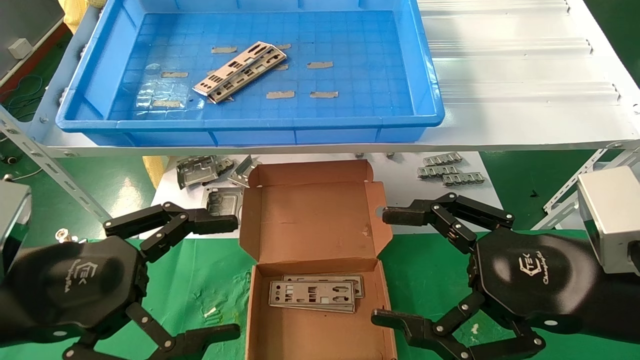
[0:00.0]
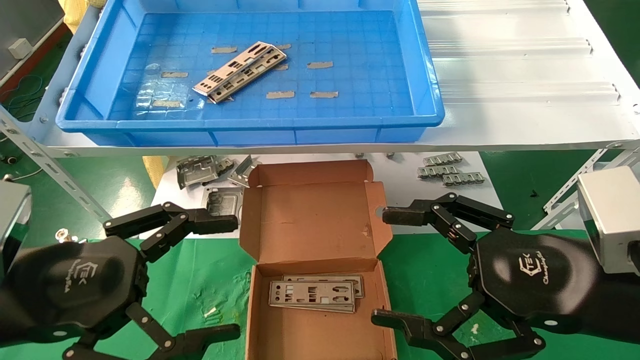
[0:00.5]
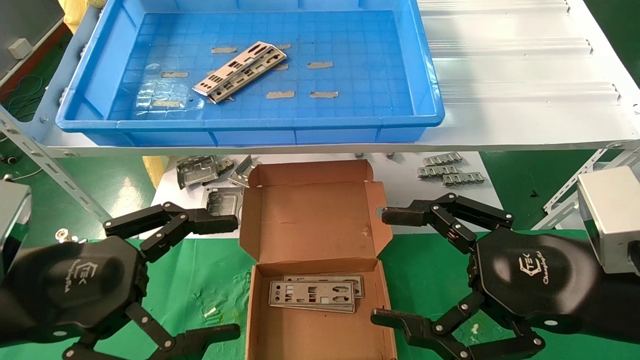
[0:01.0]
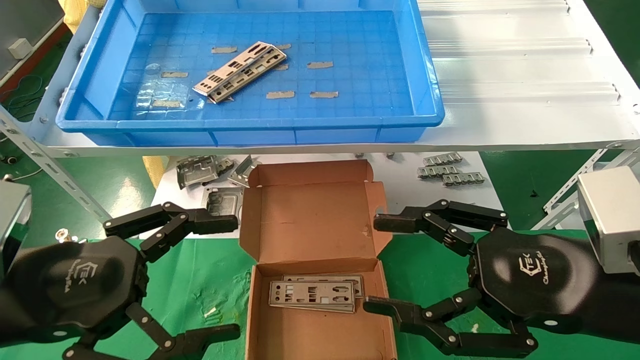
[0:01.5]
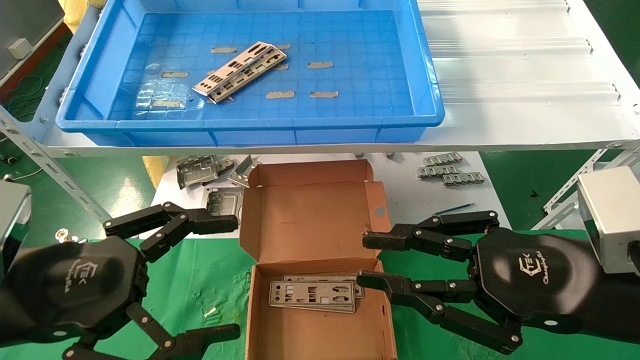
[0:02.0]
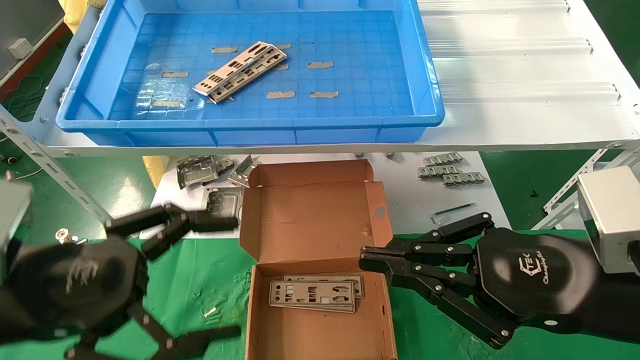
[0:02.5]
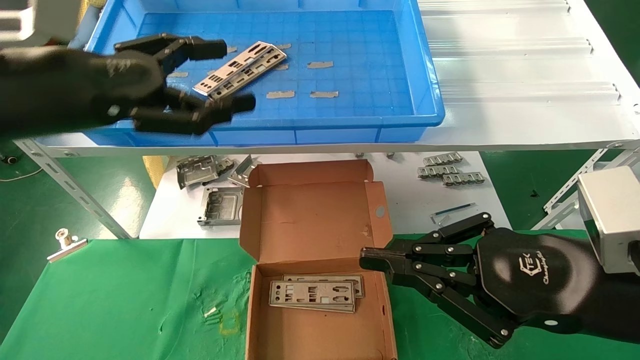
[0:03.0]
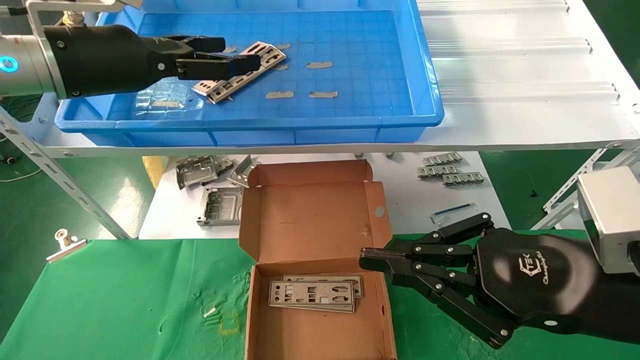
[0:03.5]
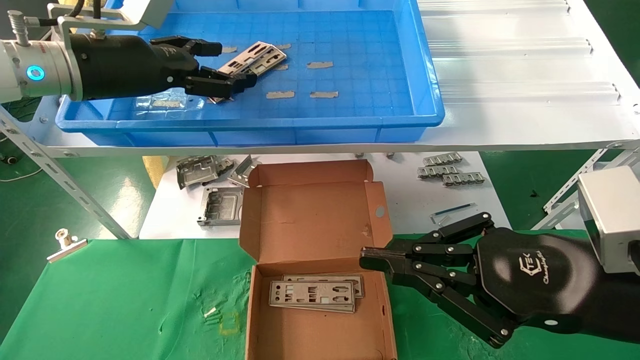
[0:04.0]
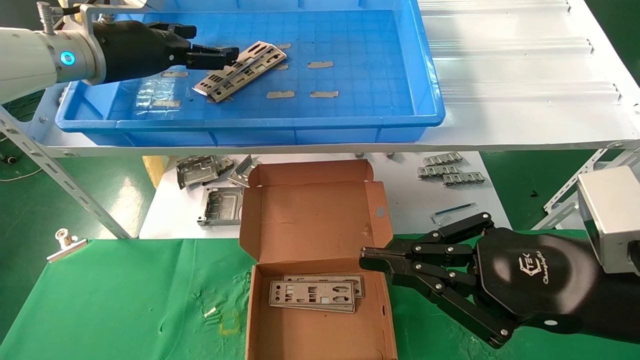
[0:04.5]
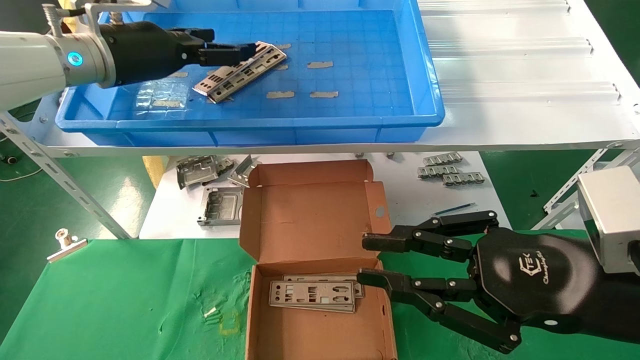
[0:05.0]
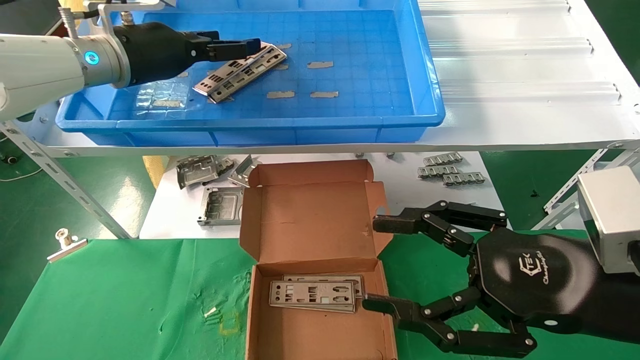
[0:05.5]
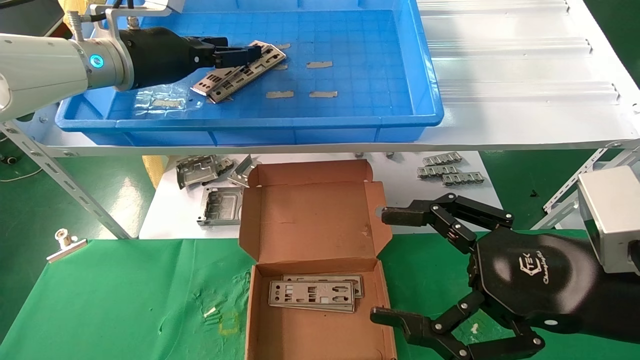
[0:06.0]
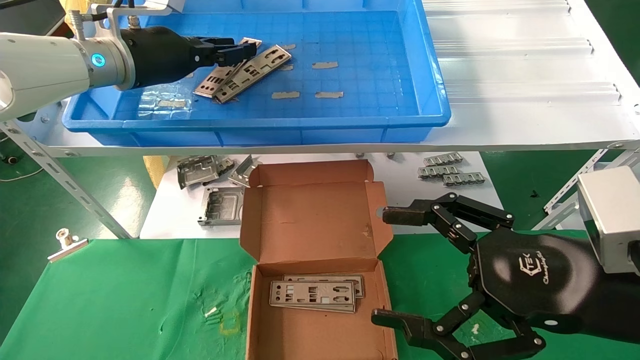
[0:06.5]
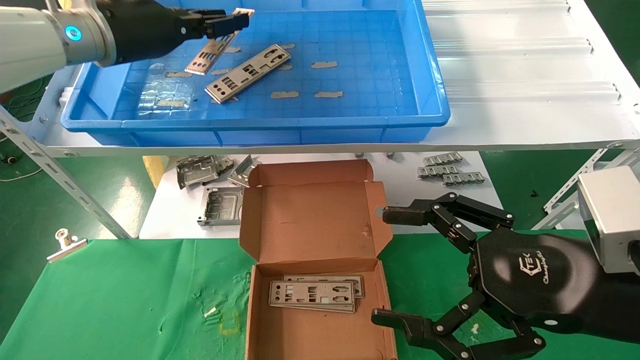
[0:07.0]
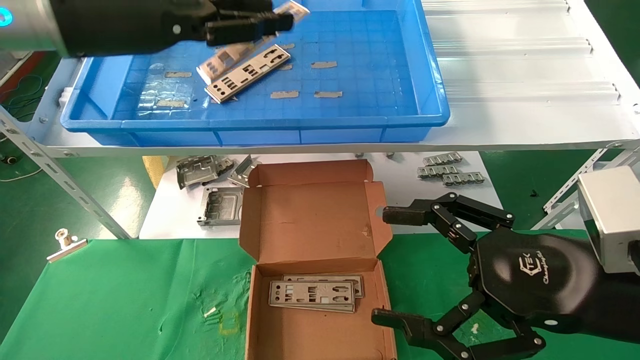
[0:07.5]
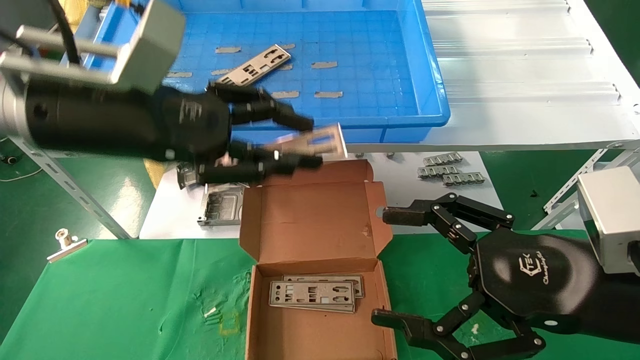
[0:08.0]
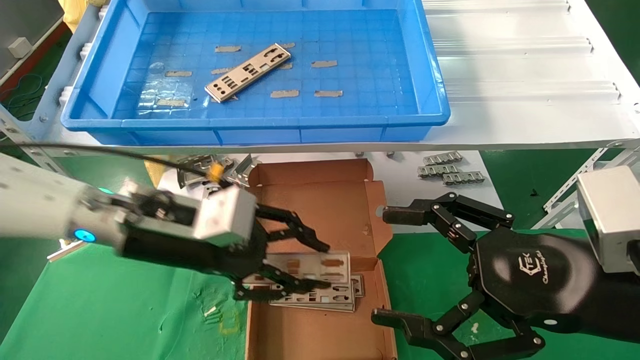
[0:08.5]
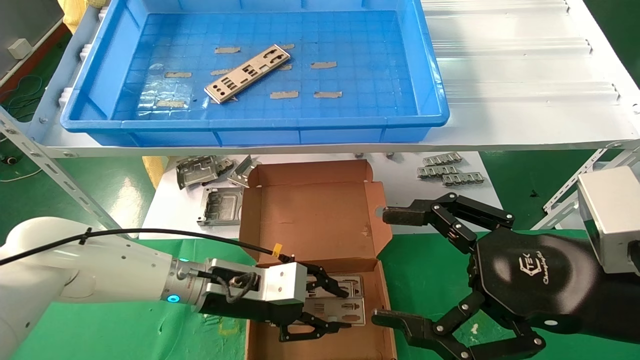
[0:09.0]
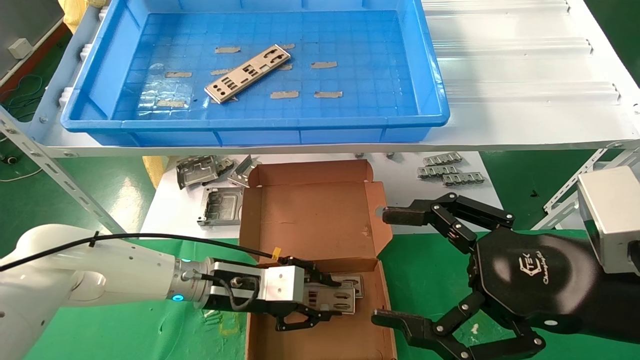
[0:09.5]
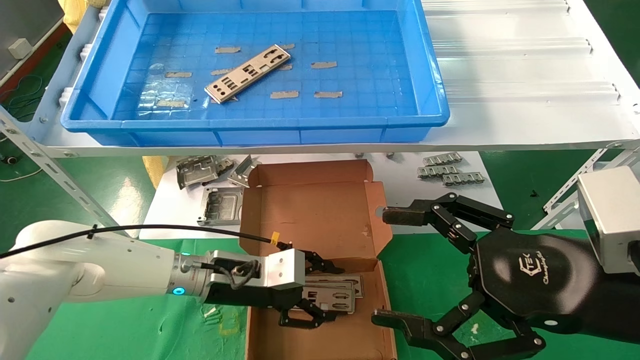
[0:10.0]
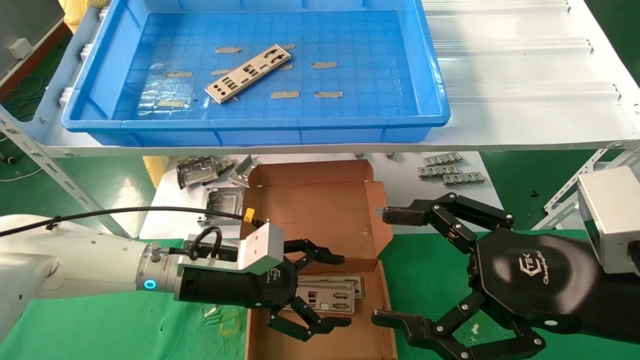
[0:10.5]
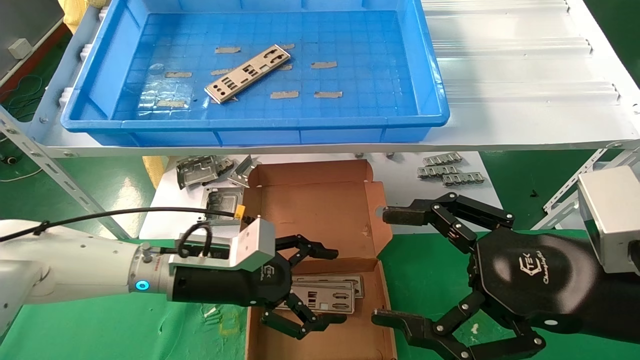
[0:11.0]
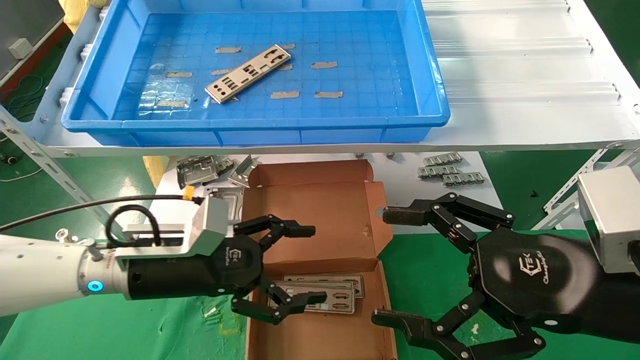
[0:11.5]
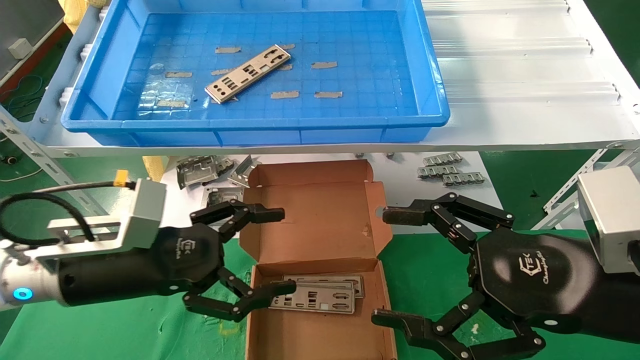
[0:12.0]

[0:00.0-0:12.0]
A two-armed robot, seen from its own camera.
Task of the whole recording: pick up the parts on the tray and put them in the cardboard box.
Step, 0:03.0 to 0:06.5: Pick up the IO bracket from the container box.
Step, 0:07.0 to 0:09.5: Place the IO bracket into the ingredient slot.
0:00.0 to 0:02.0: The right gripper closes its fingers.
0:02.0 to 0:04.0: The left gripper is displaced forward and upward by about 25 cm, while the right gripper closes.
0:04.0 to 0:06.0: The right gripper opens, while the left gripper moves about 5 cm.
0:06.0 to 0:08.0: The left gripper moves backward, roughly 15 cm, and closes.
0:08.0 to 0:10.0: The left gripper goes roughly 25 cm downward.
0:10.0 to 0:12.0: The left gripper heads backward, to the left and upward, covering roughly 15 cm, and opens.

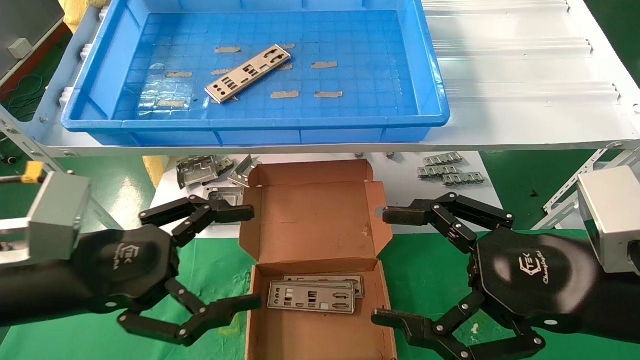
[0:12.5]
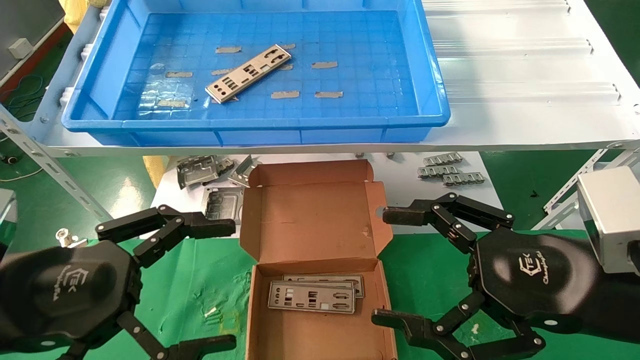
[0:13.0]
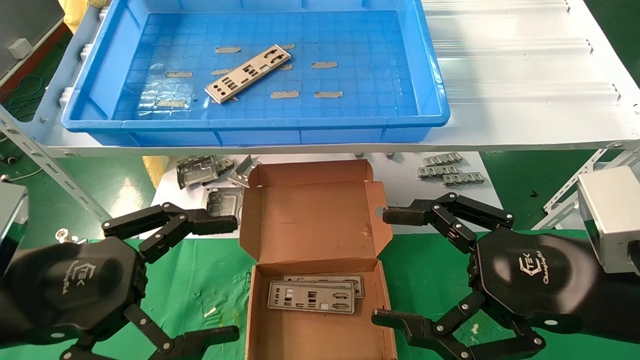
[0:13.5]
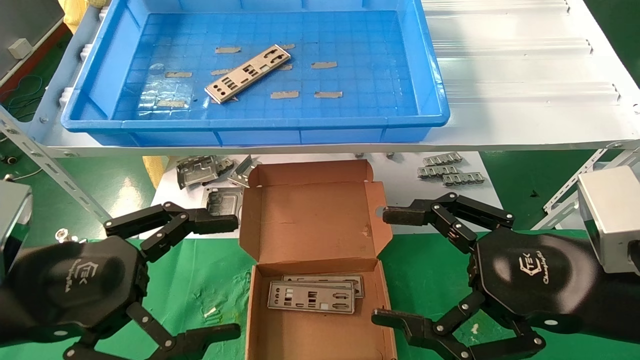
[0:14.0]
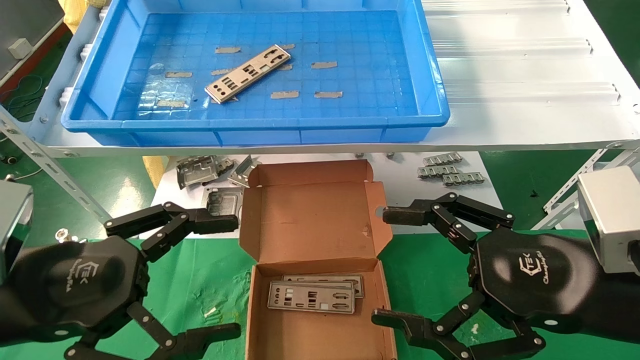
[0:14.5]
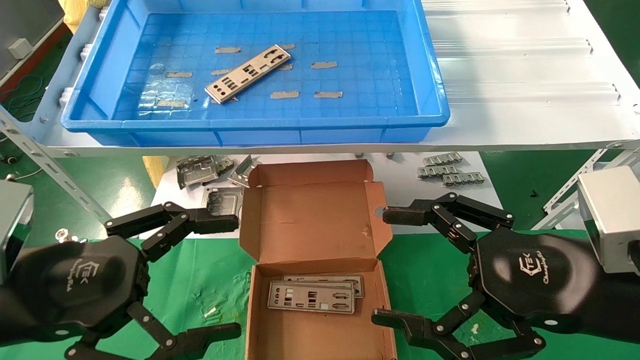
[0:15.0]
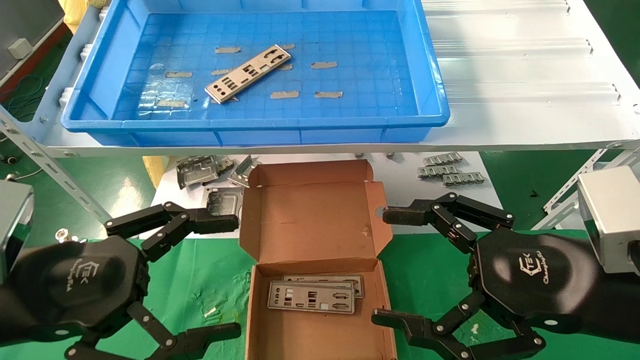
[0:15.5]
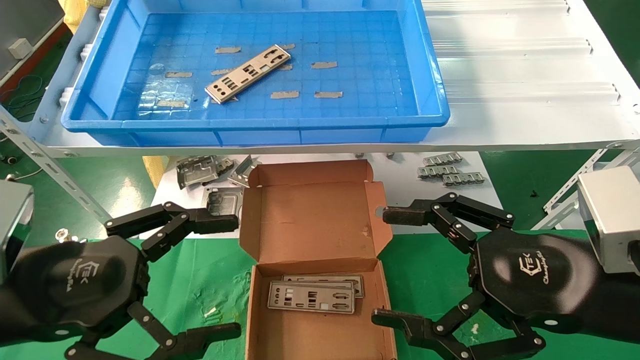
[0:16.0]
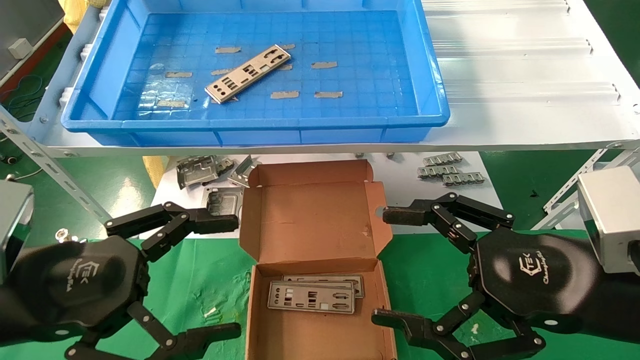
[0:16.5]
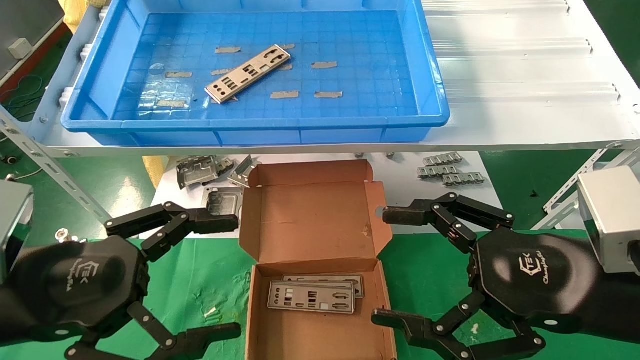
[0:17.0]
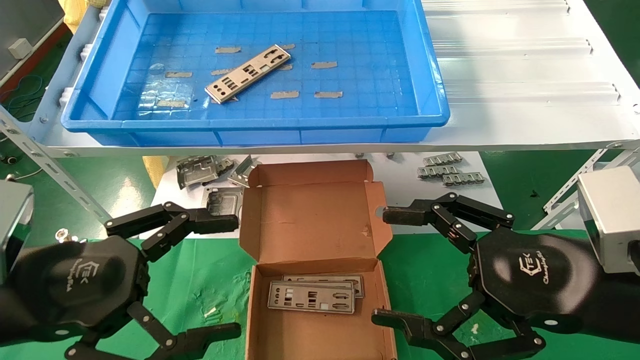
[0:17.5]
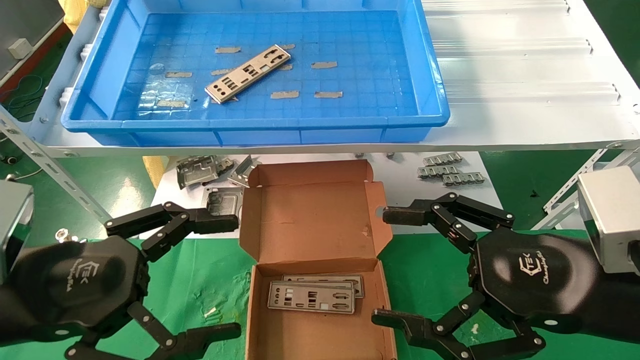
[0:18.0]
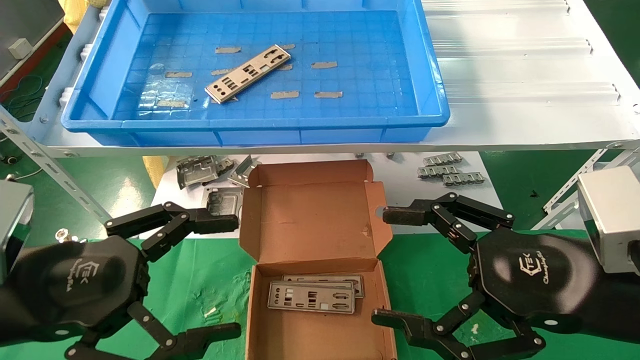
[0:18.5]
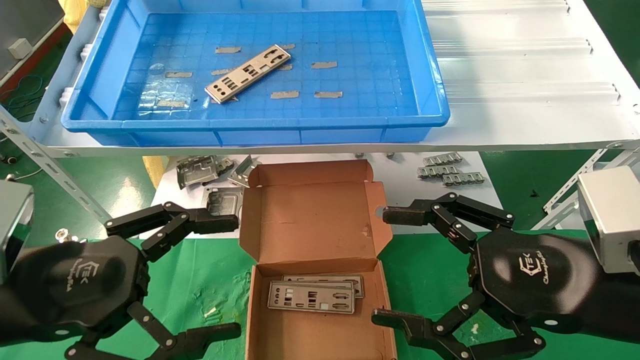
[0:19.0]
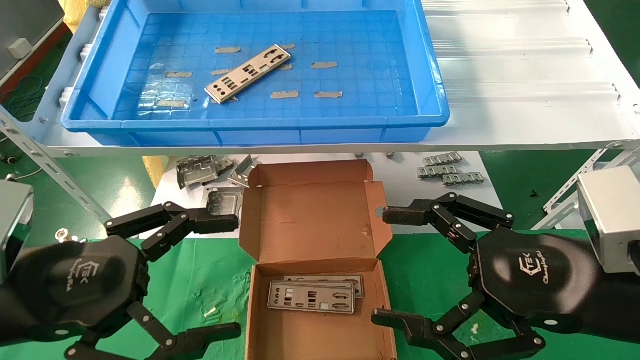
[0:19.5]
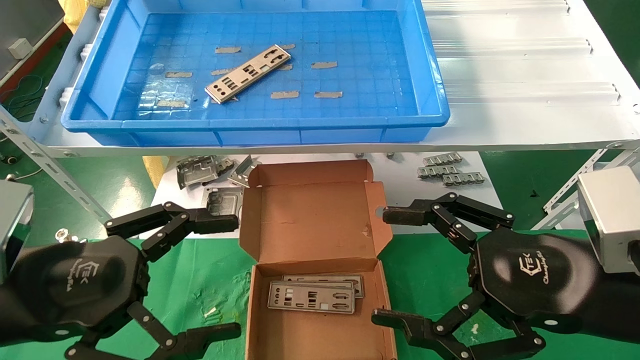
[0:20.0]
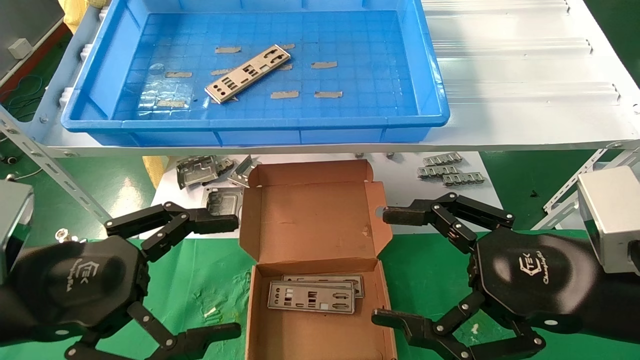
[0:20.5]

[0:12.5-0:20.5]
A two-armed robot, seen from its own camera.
Task of the whole recording: pick up the parts on the tray and put them in the cardboard box.
0:12.5 to 0:14.5: There are only small adjustments of the grippers.
0:14.5 to 0:20.5: Both grippers stay about where they are.
